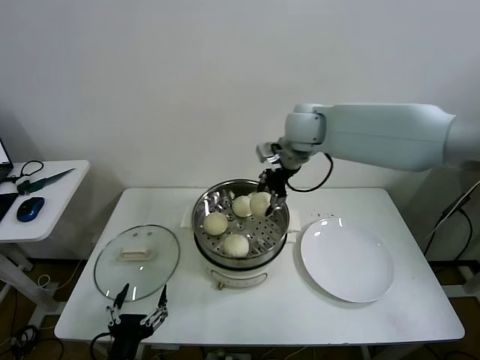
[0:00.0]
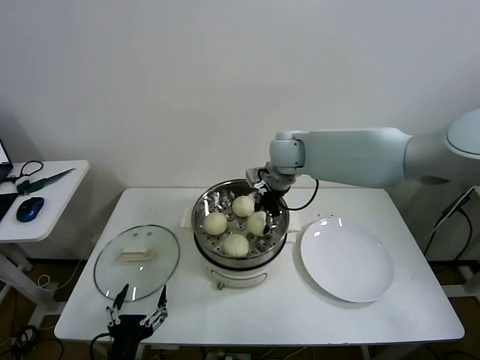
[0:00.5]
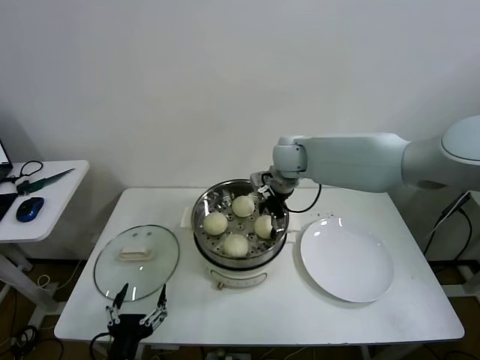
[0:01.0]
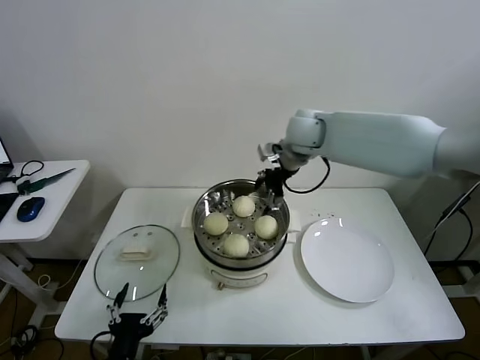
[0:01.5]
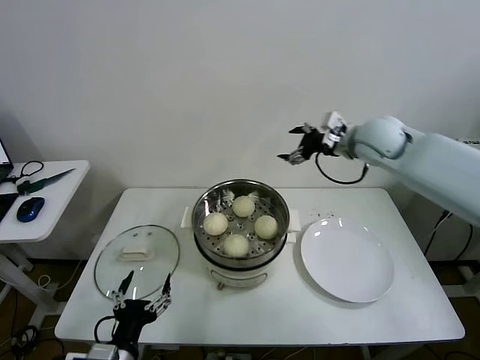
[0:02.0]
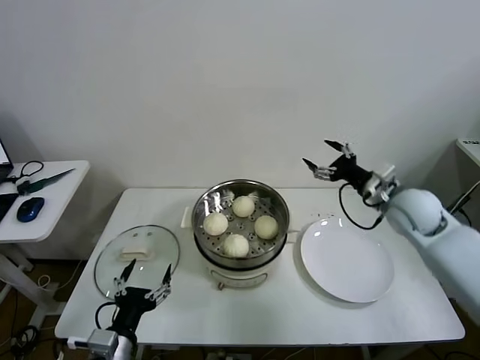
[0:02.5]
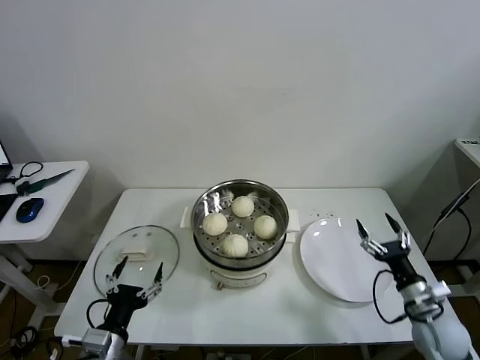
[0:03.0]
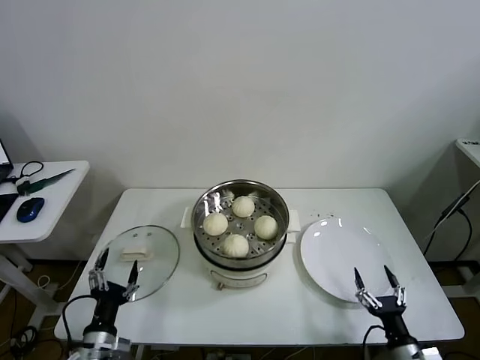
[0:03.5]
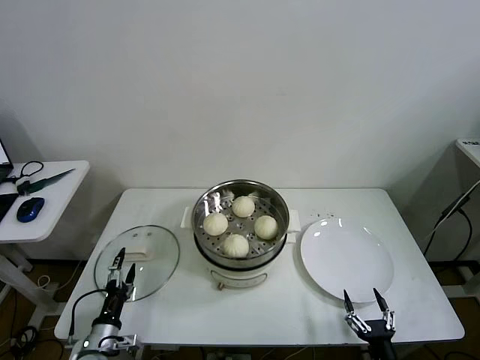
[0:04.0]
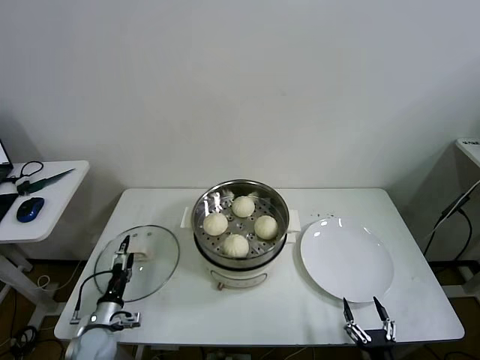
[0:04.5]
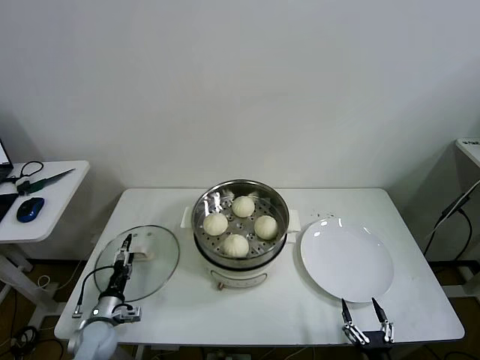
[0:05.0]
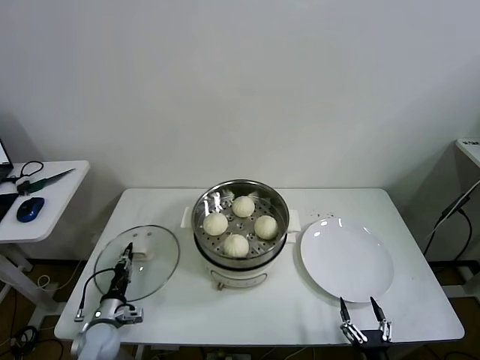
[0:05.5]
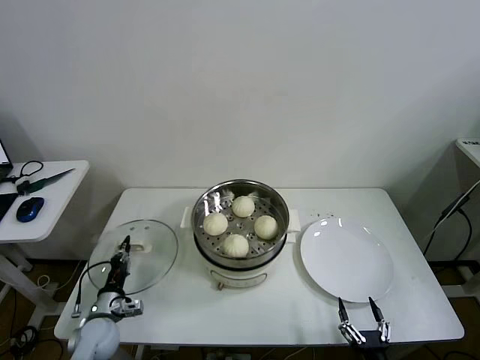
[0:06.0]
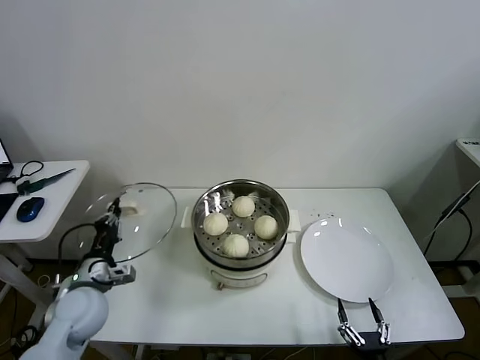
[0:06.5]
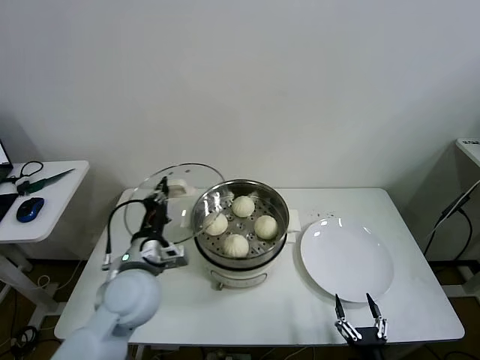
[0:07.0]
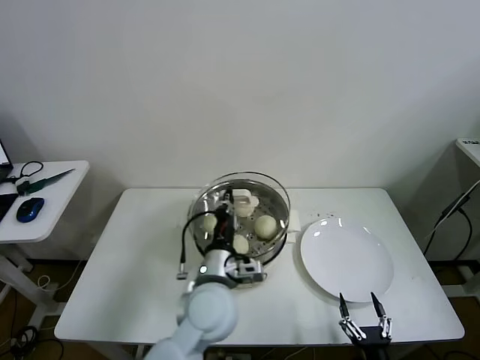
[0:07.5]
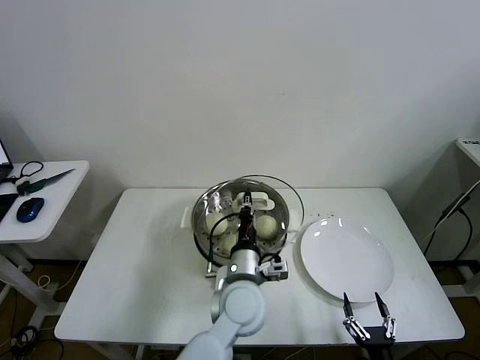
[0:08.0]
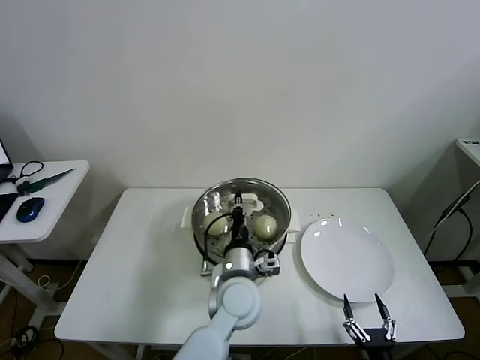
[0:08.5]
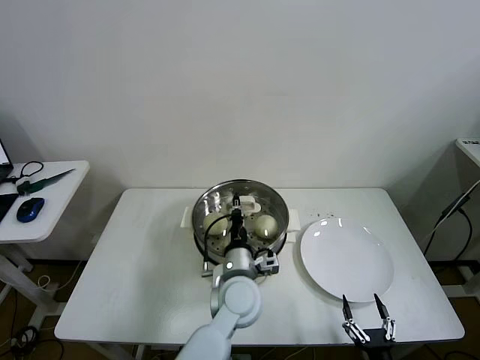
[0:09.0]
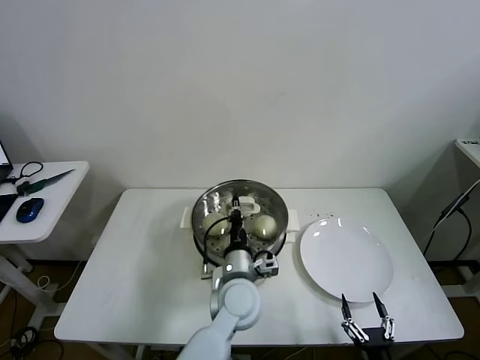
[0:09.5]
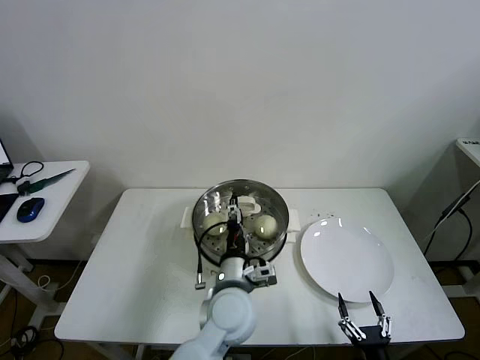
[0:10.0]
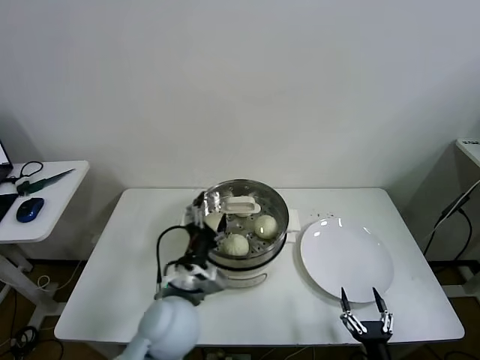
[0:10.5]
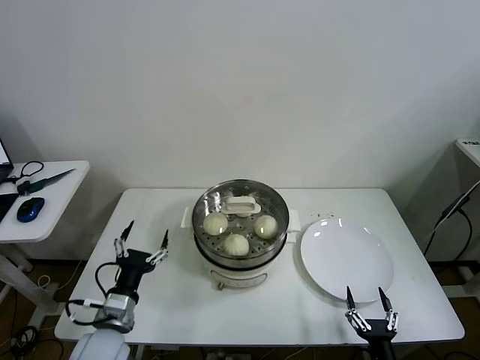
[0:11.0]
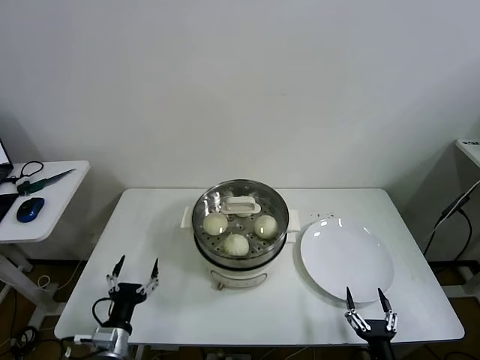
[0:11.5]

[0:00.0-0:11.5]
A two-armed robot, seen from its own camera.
Task of the whole recording: take steamed baozi put them in steamer then cover it.
Step, 0:01.5 to 0:05.5: Grasp the pot lid with left gripper.
Step, 0:06.0 to 0:10.0: Place the pot lid on the steamer with left gripper.
0:00.0 to 0:02.0: The right gripper goes approximately 15 cm to the right, and opens.
0:02.0 to 0:04.0: The left gripper goes about 20 cm downward, to the left and forward, while the right gripper heads backward and downward, covering some 60 cm.
0:04.0 to 0:06.0: The left gripper moves forward, roughly 10 cm, and closes up.
0:06.0 to 0:07.5: The left gripper moves to the right and upward, roughly 35 cm.
0:07.5 to 0:09.5: The left gripper is displaced downward and to the right by roughly 10 cm.
0:09.5 to 0:11.5: The left gripper goes about 30 cm to the left and backward, and opens.
